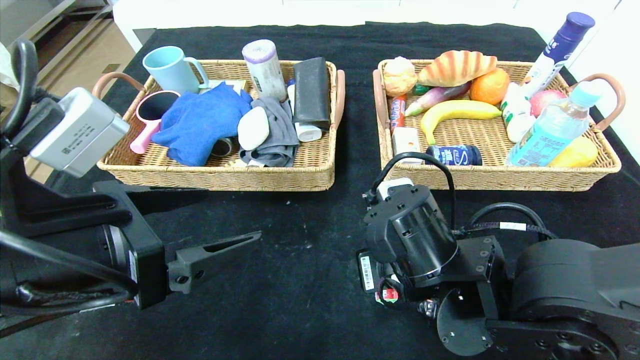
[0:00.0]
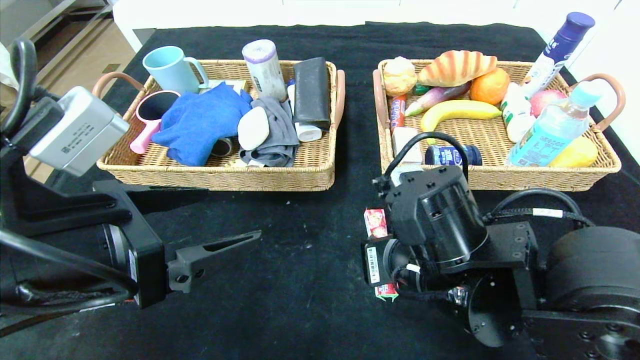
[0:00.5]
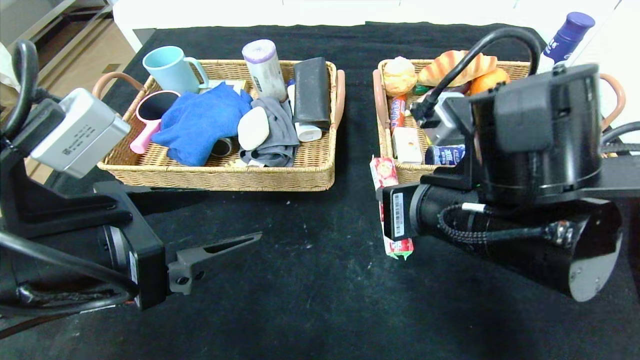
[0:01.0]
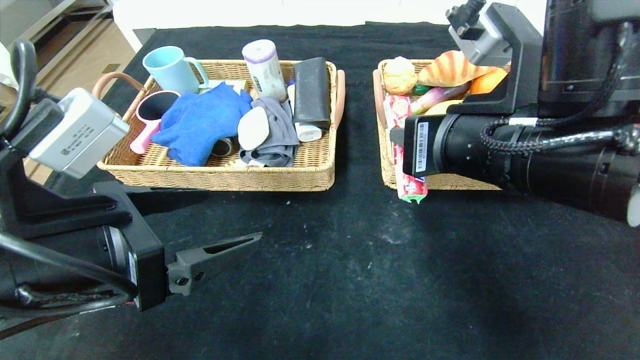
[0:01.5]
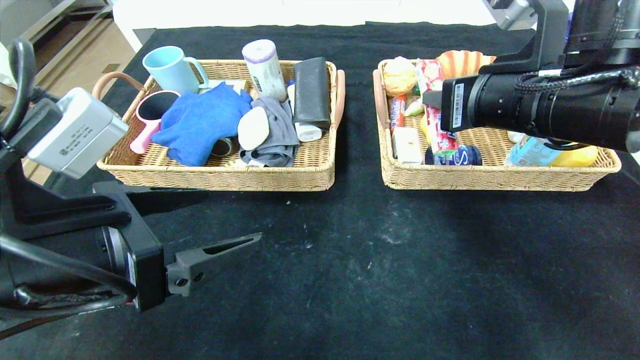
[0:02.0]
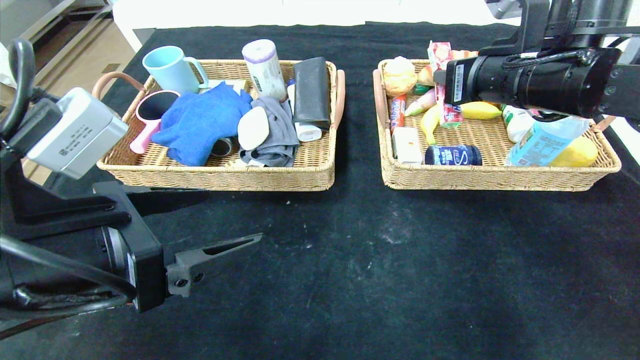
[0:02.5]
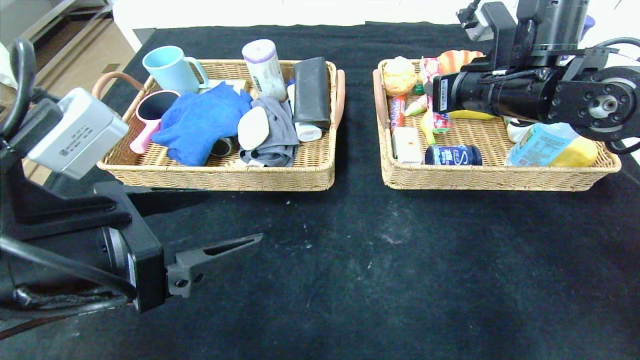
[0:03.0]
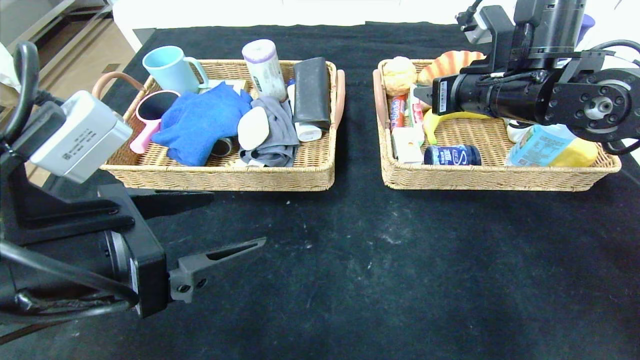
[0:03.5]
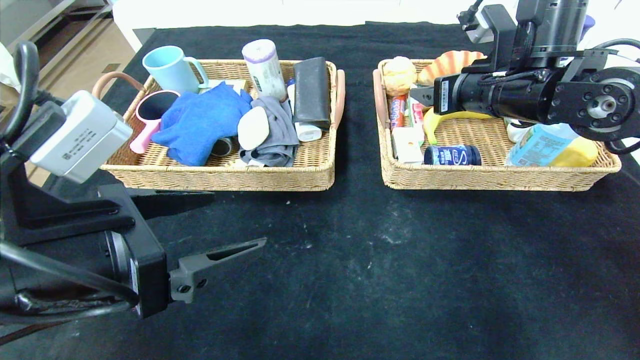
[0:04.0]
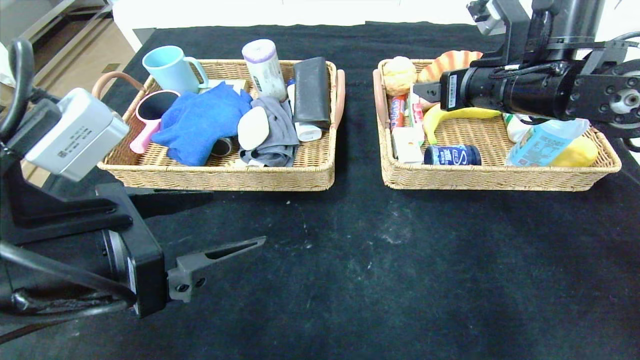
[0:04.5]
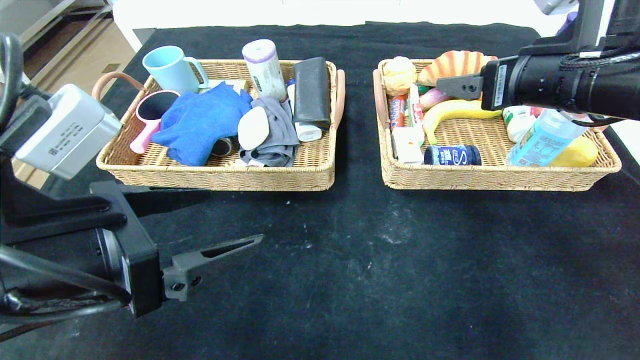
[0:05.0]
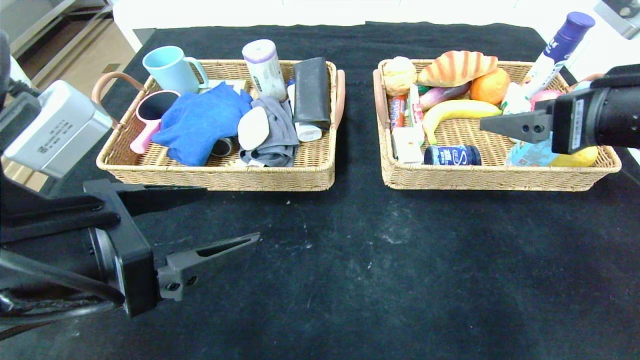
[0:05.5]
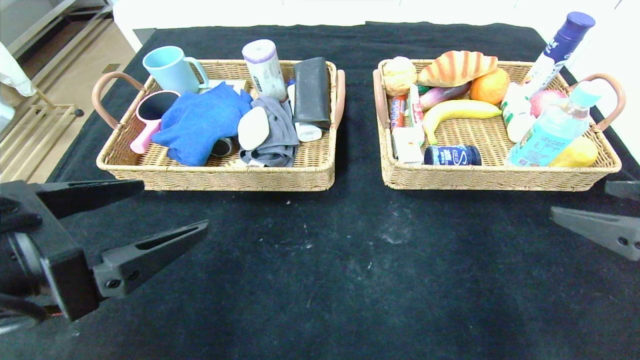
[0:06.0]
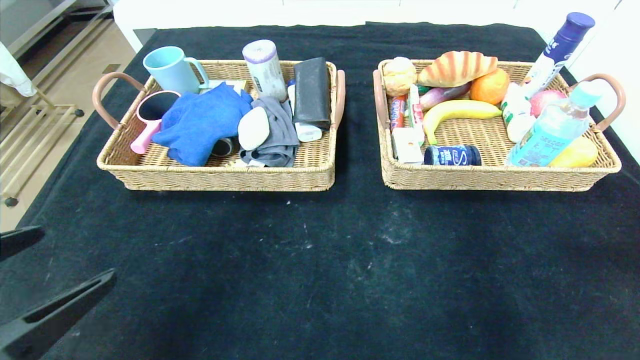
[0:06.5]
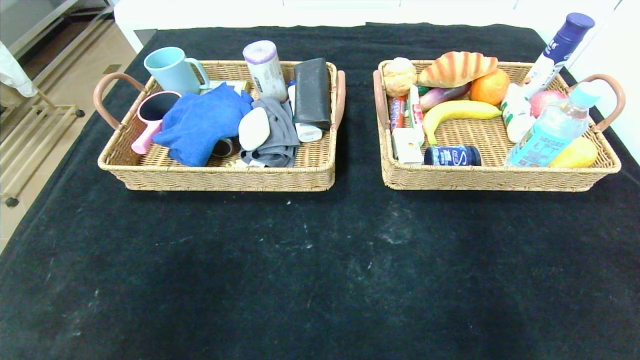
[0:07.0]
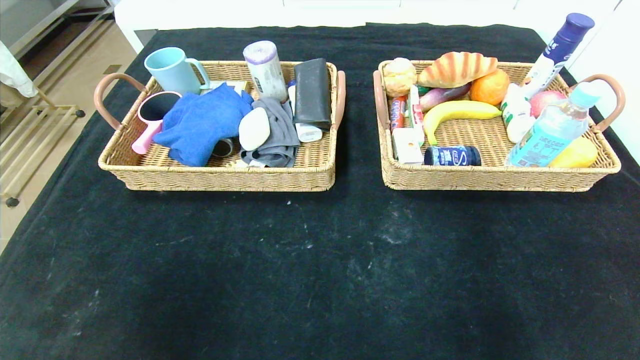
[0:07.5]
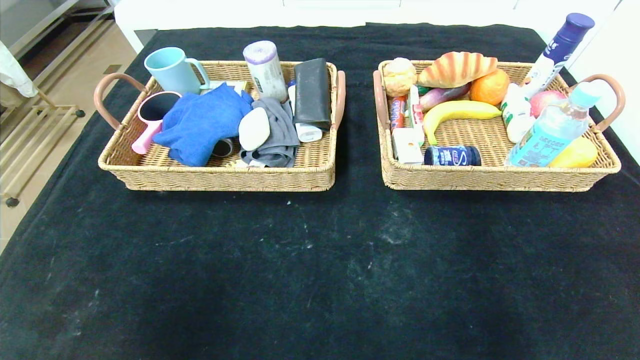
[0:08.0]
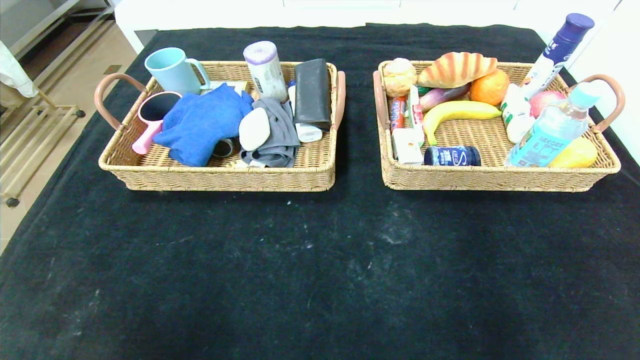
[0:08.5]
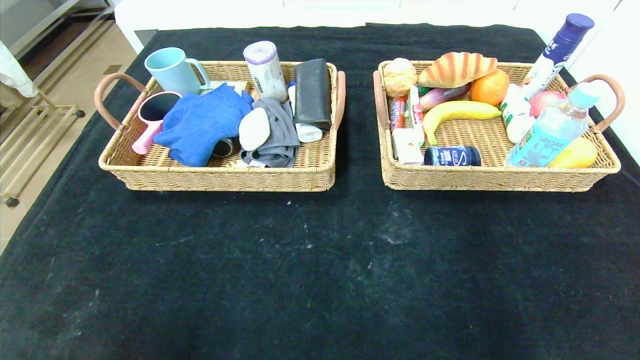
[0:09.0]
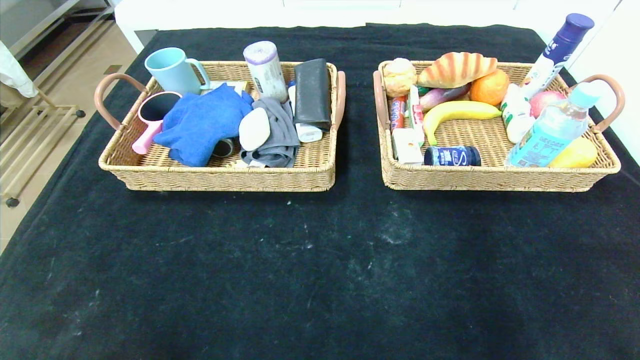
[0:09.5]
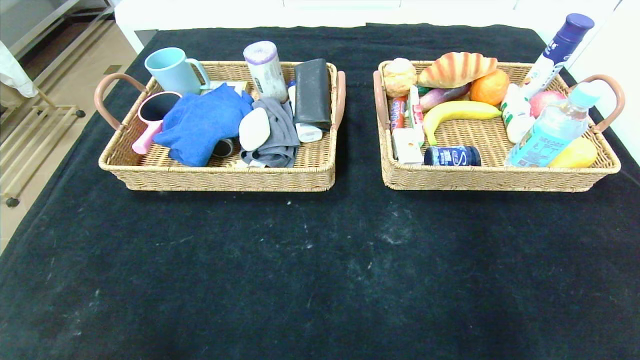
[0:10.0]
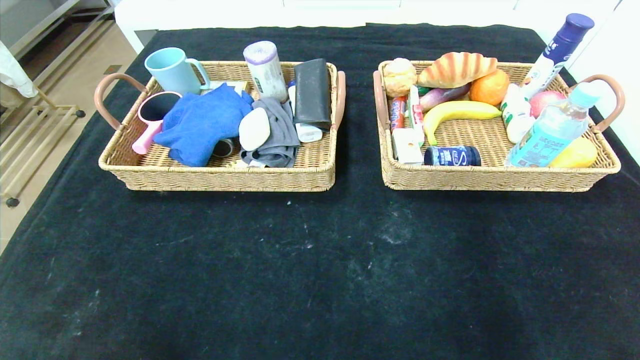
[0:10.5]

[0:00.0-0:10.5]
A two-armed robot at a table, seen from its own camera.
Step, 0:00.0 to 0:05.0: Grasp the fruit fudge and put it in the right basket.
0:00.0 to 0:02.0: The right gripper travels upward and to the right by roughly 20 cm.
0:02.0 to 0:04.0: The right gripper is displaced forward by some 10 cm, and opens its fingers.
0:04.0 to 0:06.5: The right gripper travels backward and to the right by some 35 cm; the left gripper moves backward and to the left, some 10 cm.
0:06.5 to 0:08.5: The grippers both shift backward and downward by roughly 15 cm.

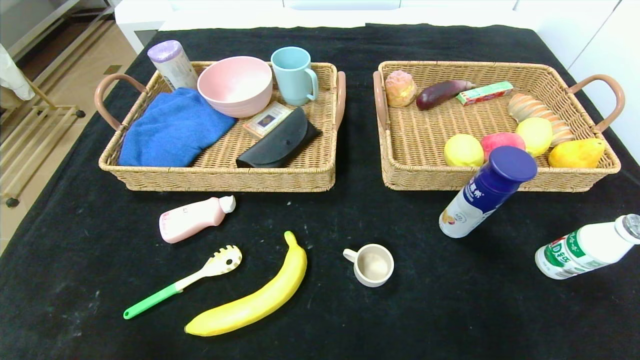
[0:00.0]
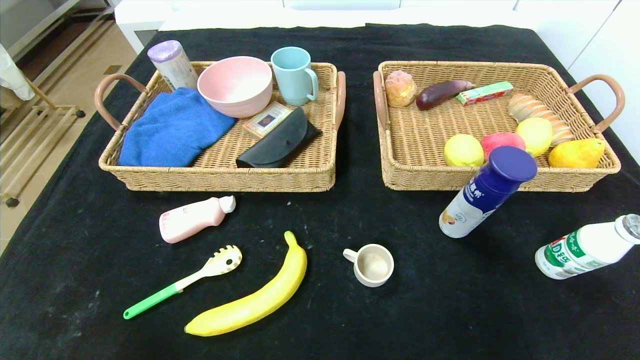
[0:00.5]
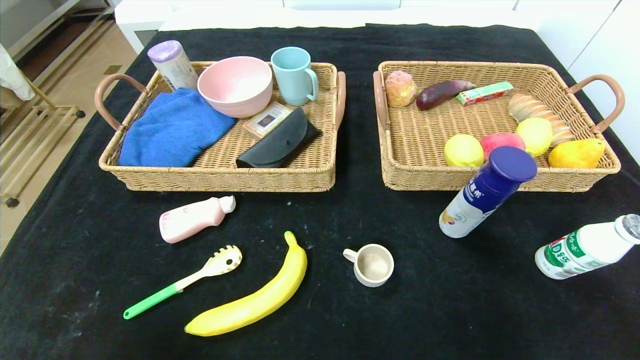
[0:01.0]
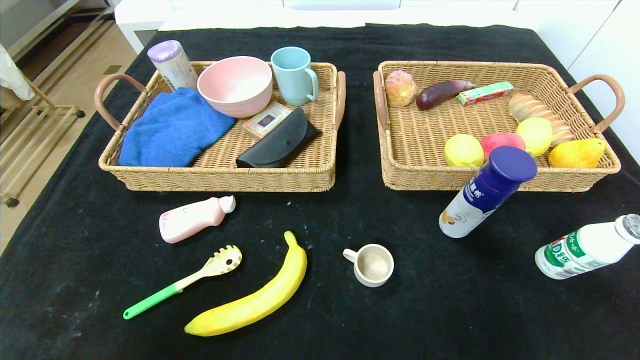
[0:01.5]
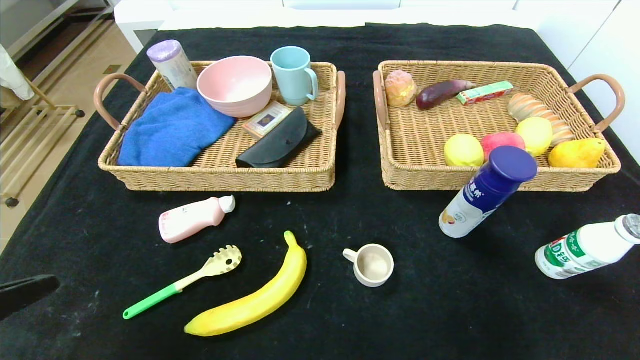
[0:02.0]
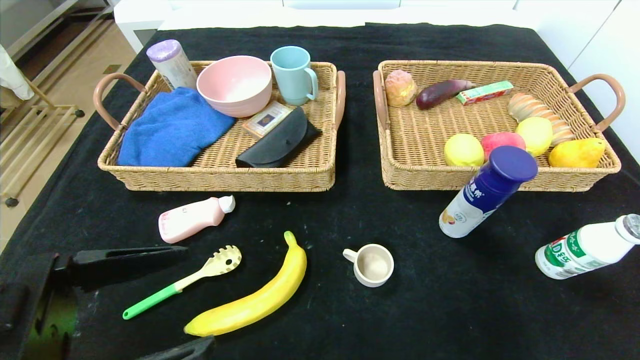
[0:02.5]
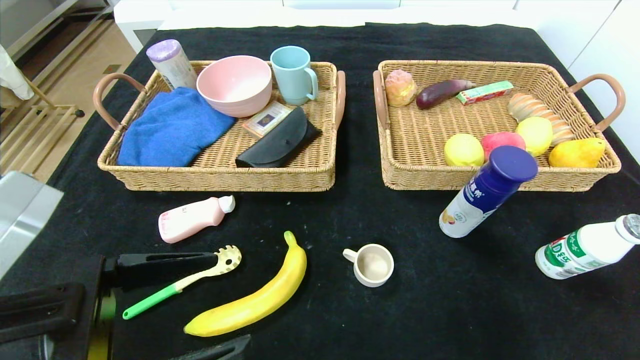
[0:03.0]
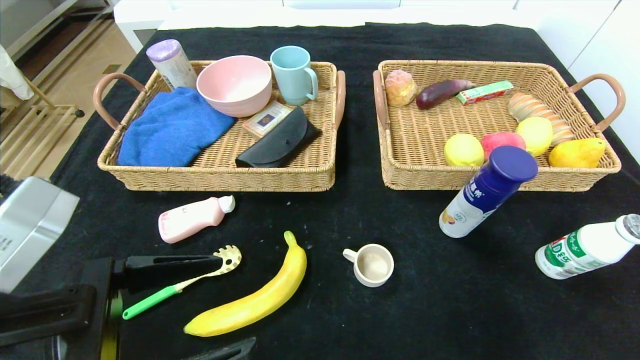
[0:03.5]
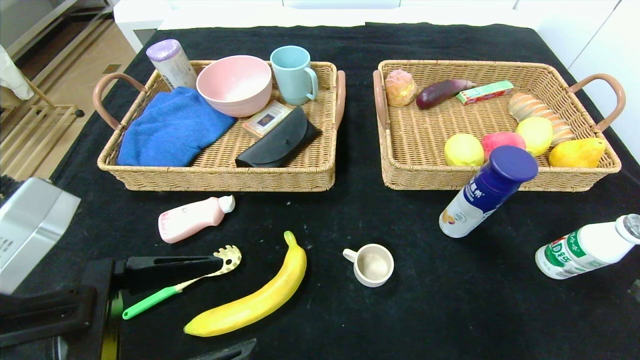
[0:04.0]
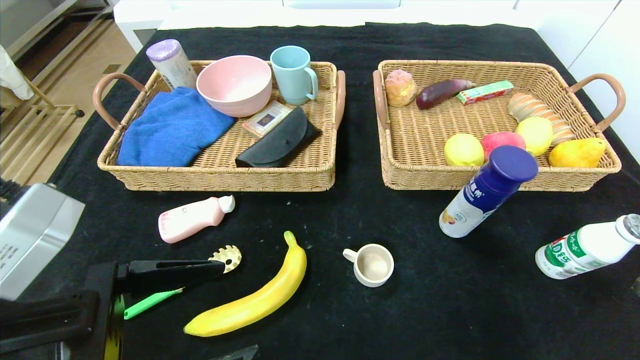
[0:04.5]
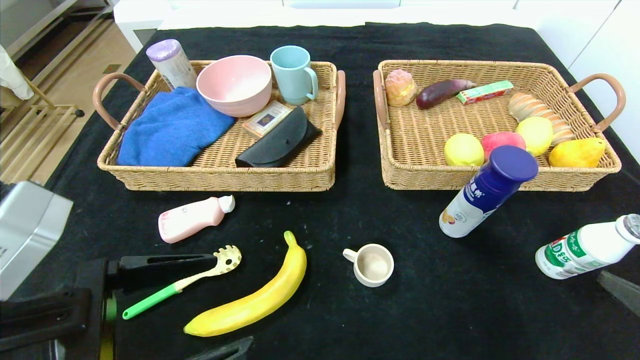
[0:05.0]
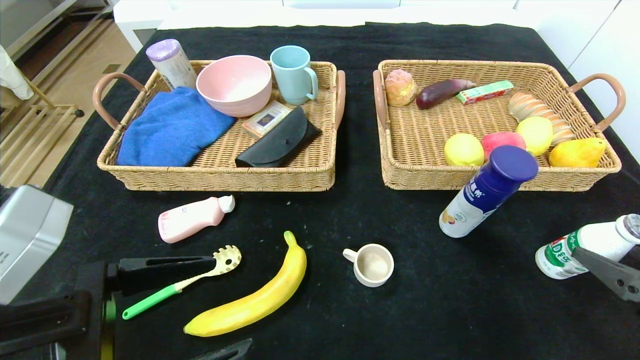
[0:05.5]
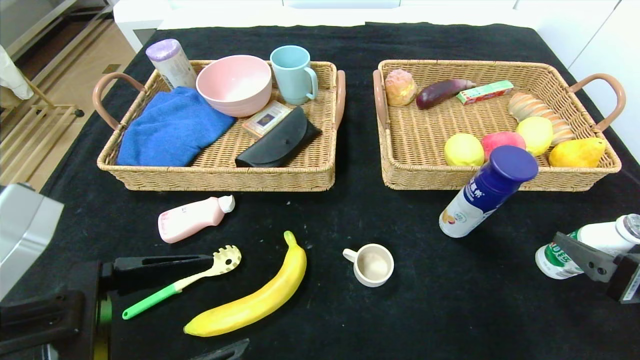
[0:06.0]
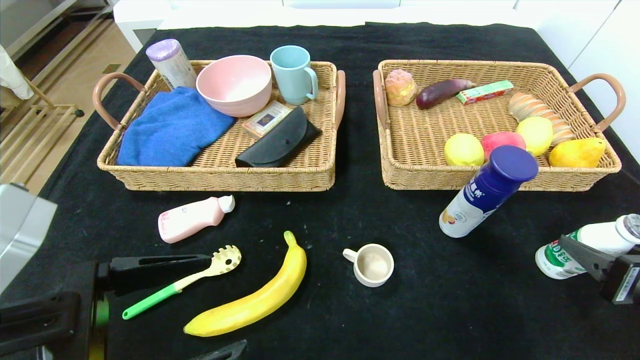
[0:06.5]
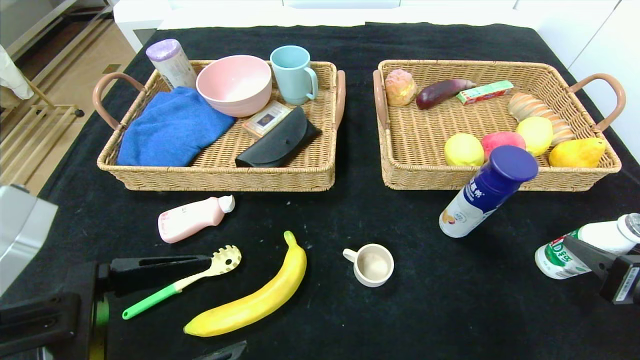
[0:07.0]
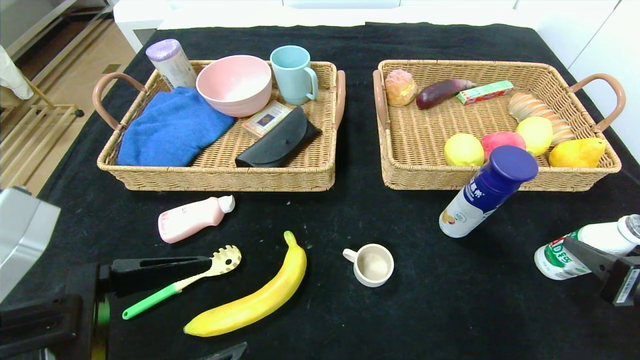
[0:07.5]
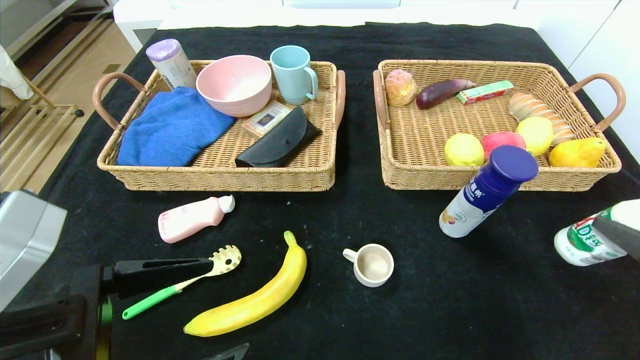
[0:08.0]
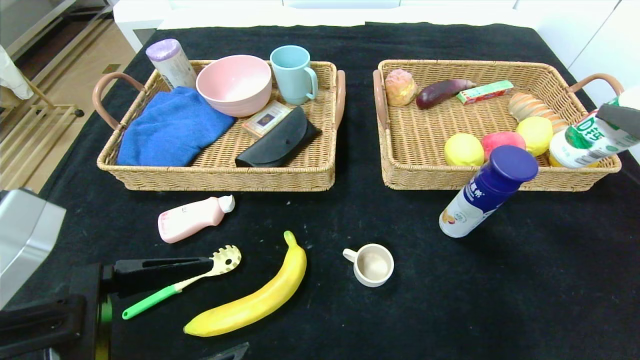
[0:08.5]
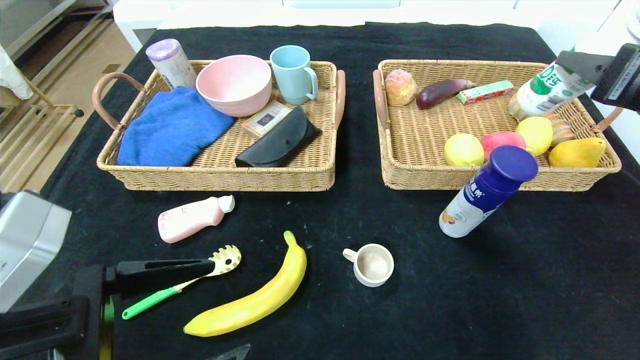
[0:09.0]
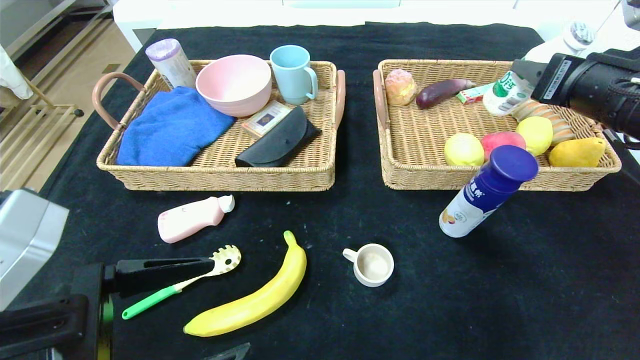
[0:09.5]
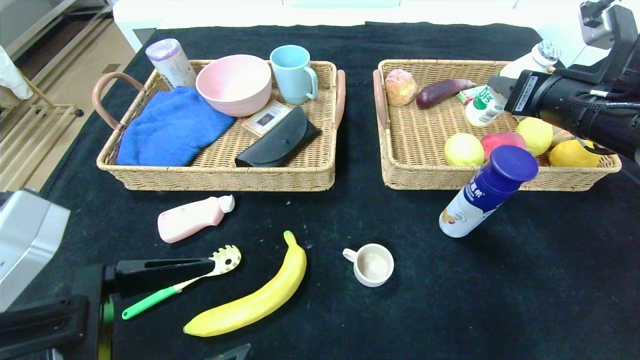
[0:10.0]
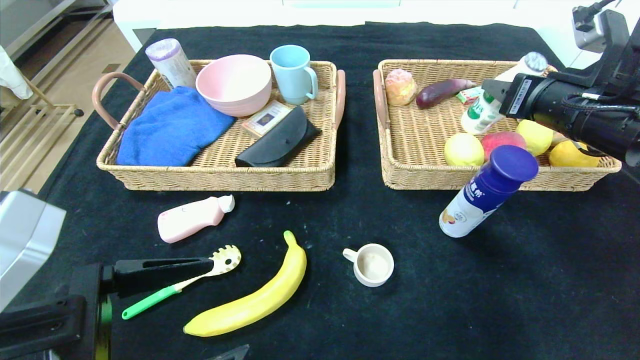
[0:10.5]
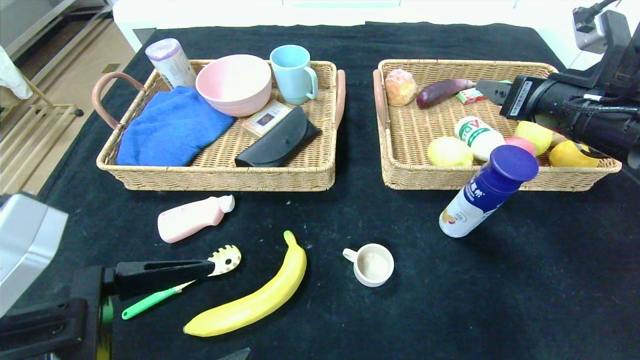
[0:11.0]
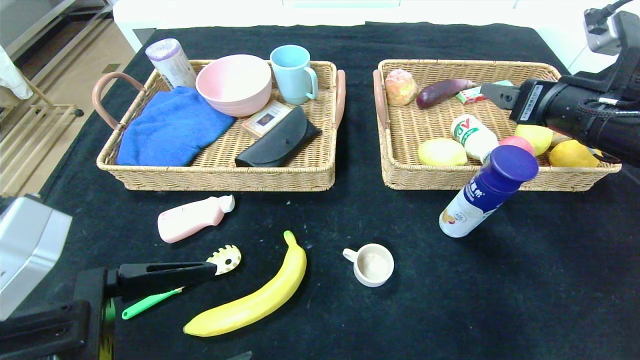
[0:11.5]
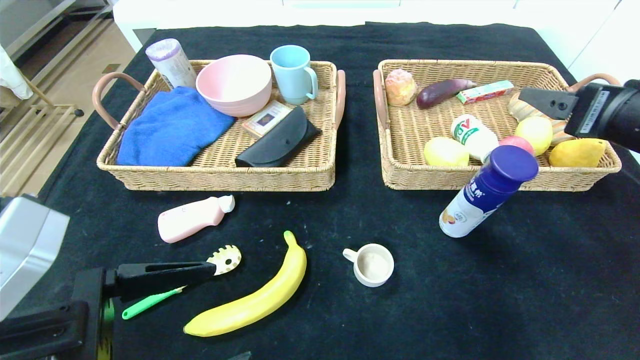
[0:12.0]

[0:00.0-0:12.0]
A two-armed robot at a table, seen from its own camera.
0:00.0 to 0:02.0: The left gripper shifts some 15 cm upward.
0:02.0 to 0:04.0: The left gripper travels forward and to the right by some 10 cm. Meanwhile the right gripper heads forward, covering some 5 cm.
0:04.0 to 0:06.0: The right gripper heads forward, covering roughly 10 cm.
0:06.0 to 0:08.0: The right gripper closes its fingers.
0:08.0 to 0:10.0: The right gripper moves forward and upward, roughly 20 cm.
0:10.0 to 0:12.0: The right gripper heads backward, covering approximately 10 cm, and opens.
